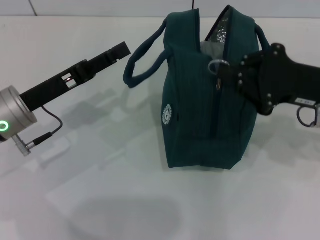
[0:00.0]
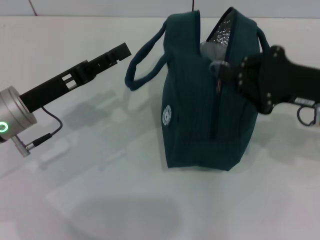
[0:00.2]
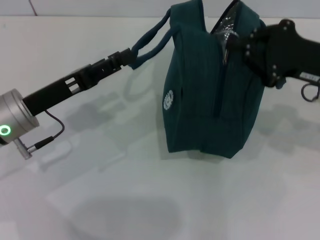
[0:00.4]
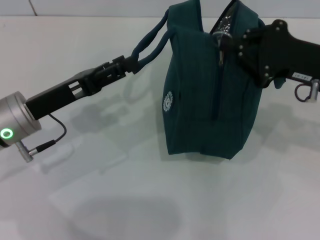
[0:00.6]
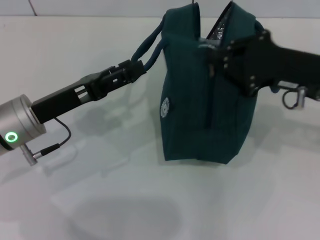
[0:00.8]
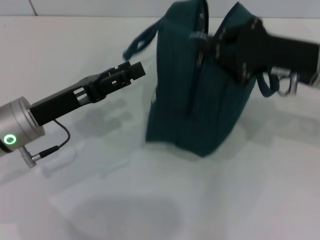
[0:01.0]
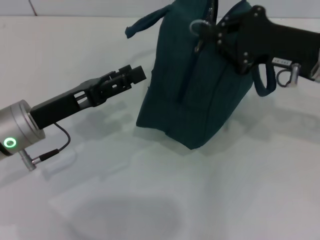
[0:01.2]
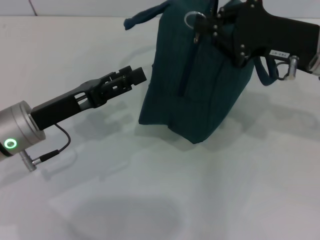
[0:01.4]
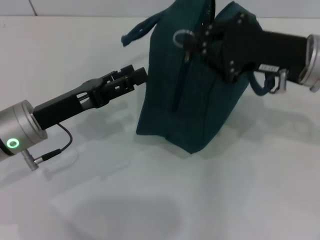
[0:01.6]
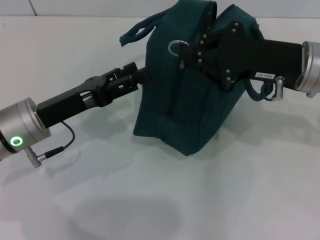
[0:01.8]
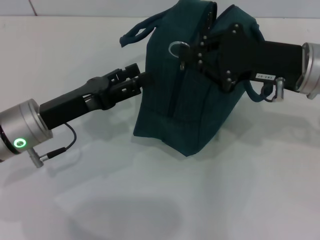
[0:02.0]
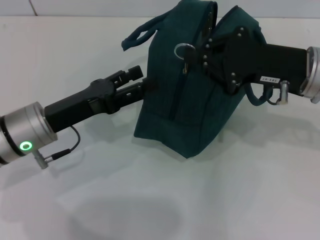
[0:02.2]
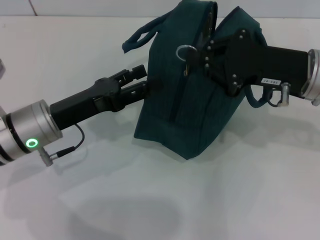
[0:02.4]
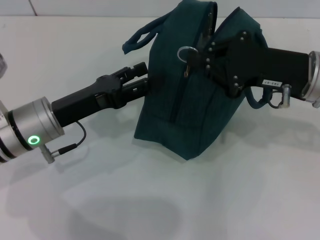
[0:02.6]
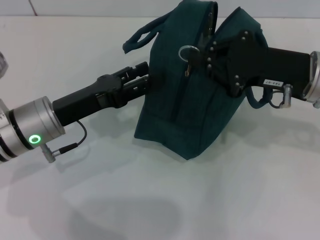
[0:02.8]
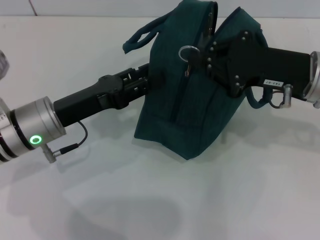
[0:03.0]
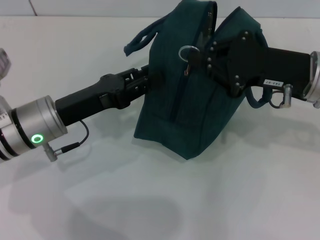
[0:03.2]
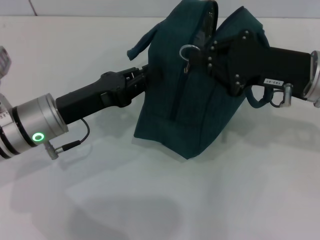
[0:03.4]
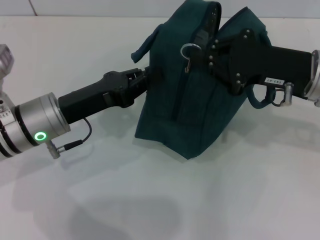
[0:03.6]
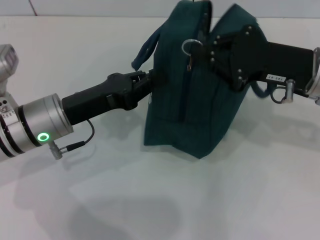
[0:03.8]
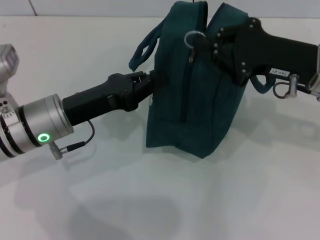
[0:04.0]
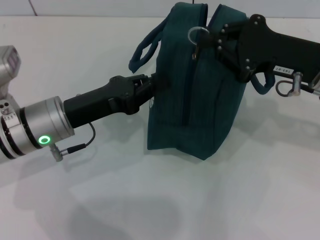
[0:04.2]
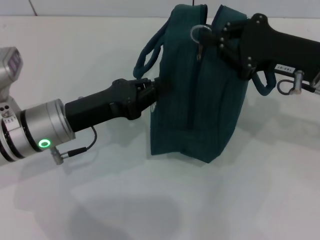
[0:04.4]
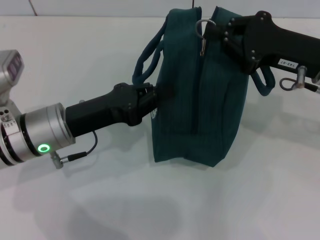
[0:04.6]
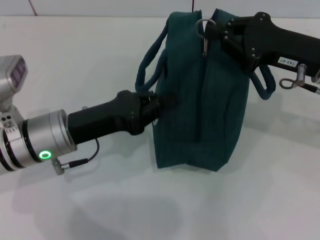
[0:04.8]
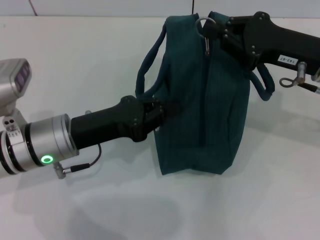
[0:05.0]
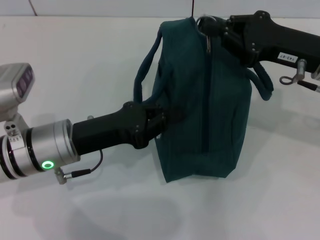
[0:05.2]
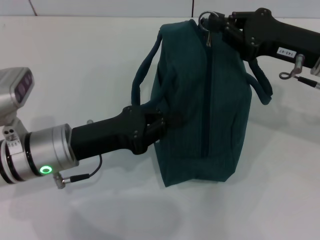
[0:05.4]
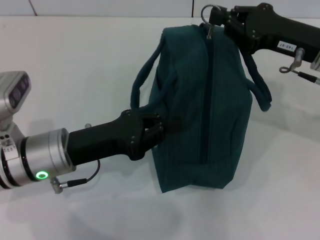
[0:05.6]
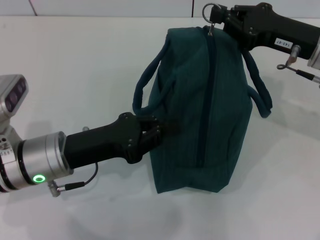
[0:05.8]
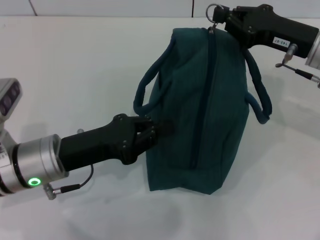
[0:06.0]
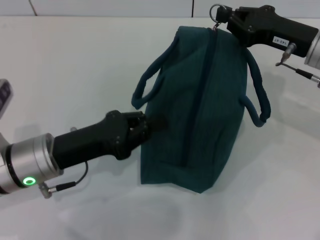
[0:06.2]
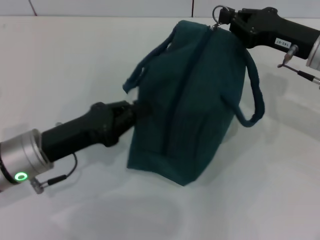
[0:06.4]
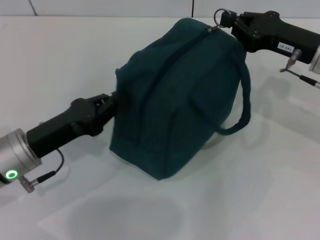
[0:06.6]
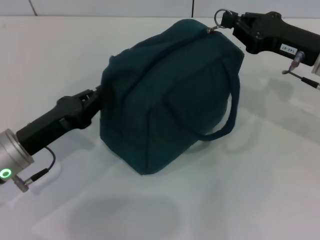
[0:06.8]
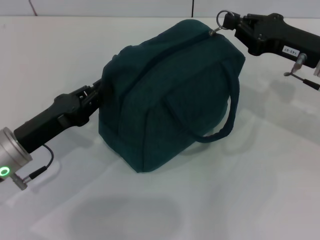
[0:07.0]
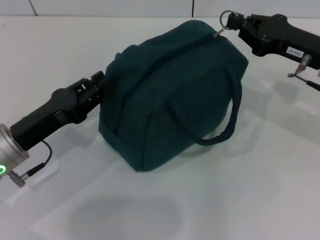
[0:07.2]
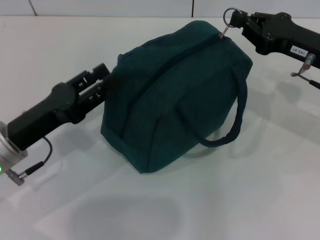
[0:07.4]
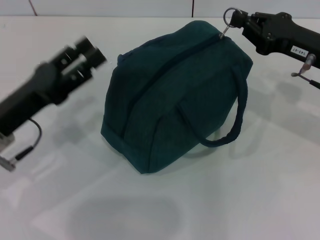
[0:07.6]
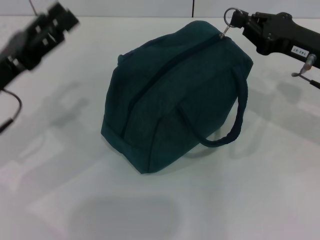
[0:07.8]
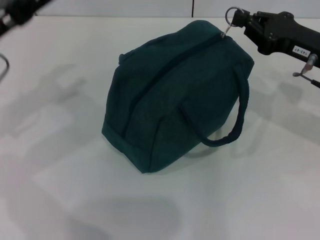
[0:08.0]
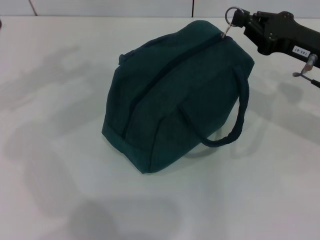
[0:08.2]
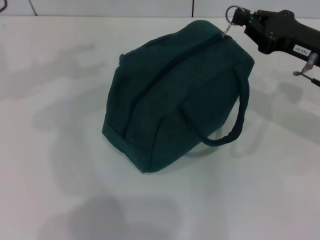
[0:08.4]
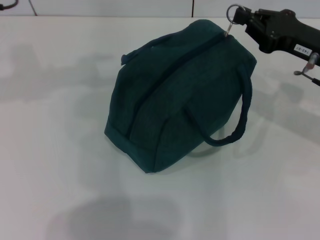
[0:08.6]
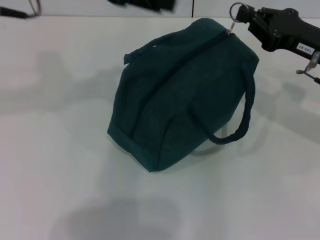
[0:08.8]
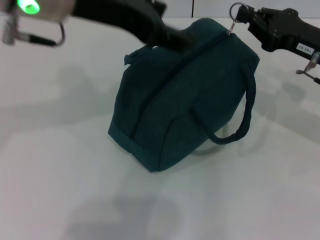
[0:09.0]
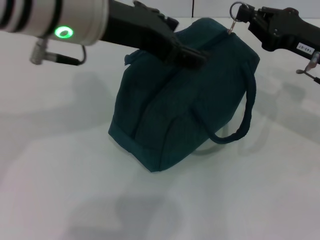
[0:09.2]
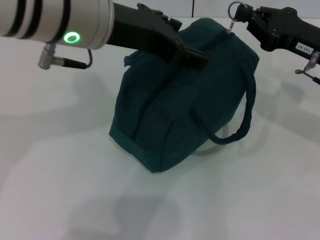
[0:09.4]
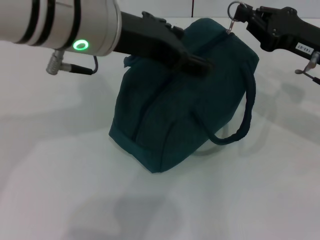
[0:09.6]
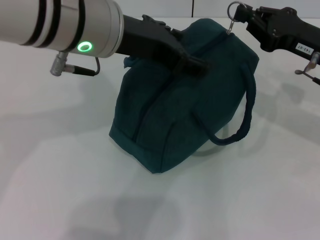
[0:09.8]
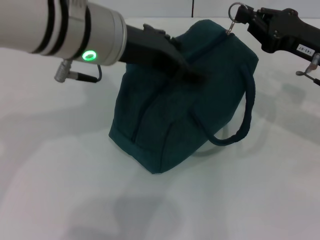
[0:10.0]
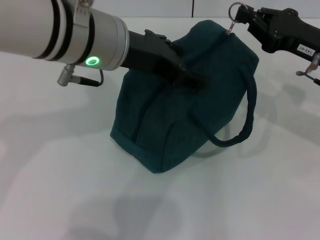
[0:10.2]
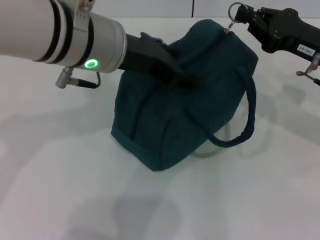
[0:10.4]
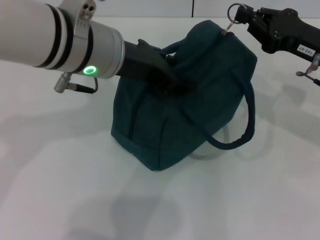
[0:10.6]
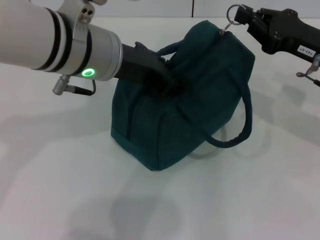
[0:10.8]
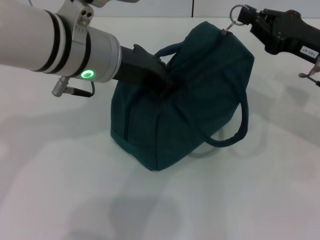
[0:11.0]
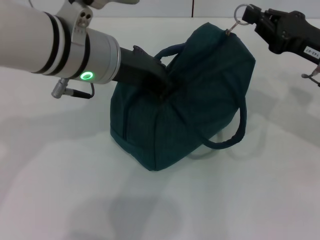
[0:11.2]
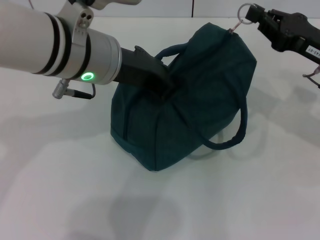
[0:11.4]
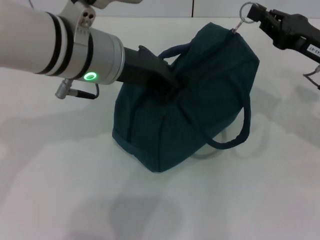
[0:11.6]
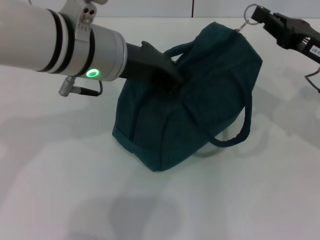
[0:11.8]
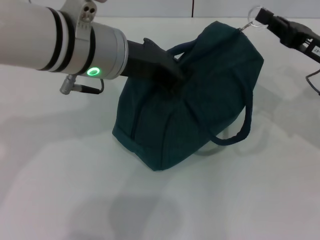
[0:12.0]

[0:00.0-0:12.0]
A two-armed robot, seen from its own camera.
0:00.0 to 0:01.6: The right gripper moves some 5 cm.
0:01.6 to 0:03.0: The grippers stay close to where they were, moving slightly.
0:03.0 to 0:04.4: The left gripper closes its fingers.
0:06.0 to 0:07.6: The left gripper moves to the left, about 5 cm, and opens up.
0:07.6 to 0:09.0: The left gripper heads upward and to the right, covering about 25 cm, and opens its fingers.
0:09.0 to 0:10.4: The left gripper goes about 5 cm downward.
0:10.4 to 0:12.0: The left gripper closes.

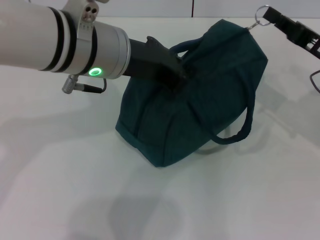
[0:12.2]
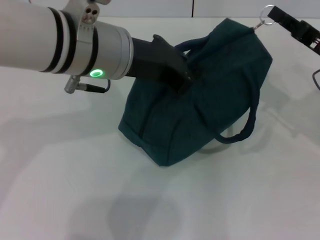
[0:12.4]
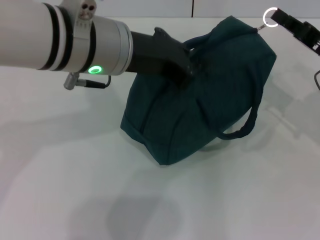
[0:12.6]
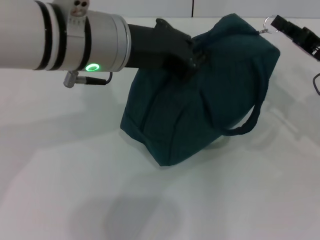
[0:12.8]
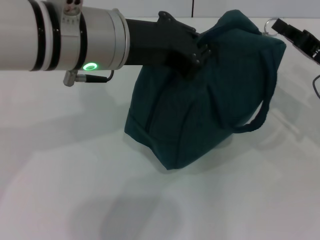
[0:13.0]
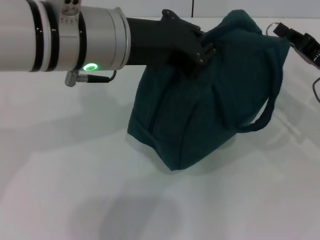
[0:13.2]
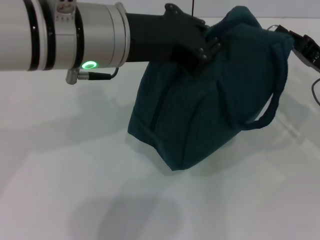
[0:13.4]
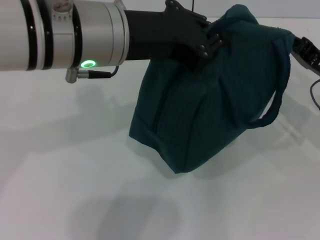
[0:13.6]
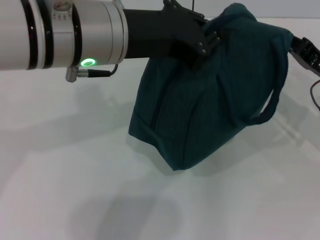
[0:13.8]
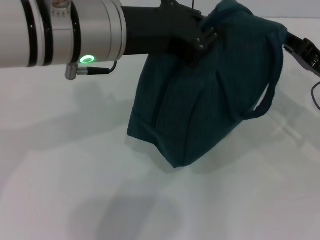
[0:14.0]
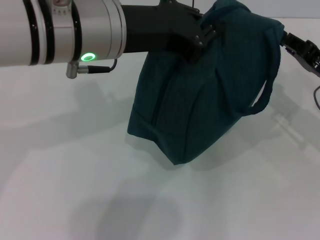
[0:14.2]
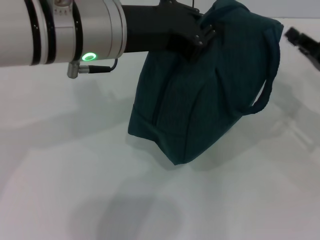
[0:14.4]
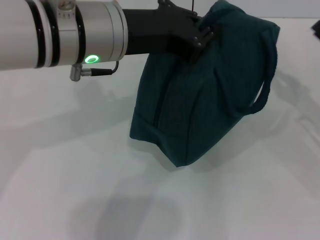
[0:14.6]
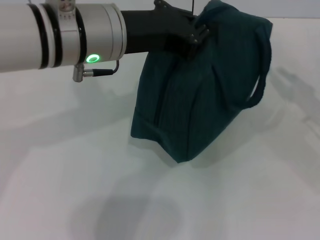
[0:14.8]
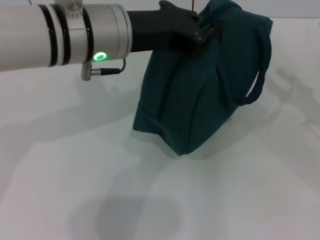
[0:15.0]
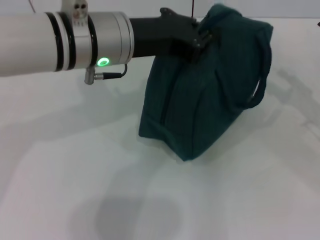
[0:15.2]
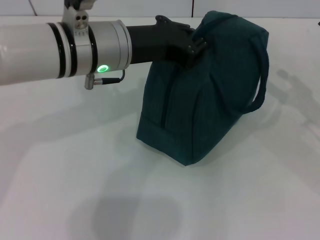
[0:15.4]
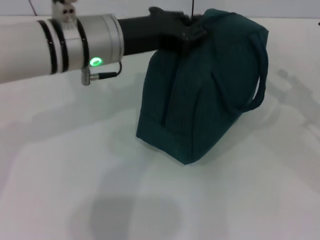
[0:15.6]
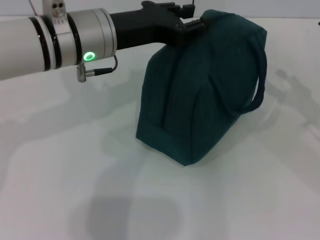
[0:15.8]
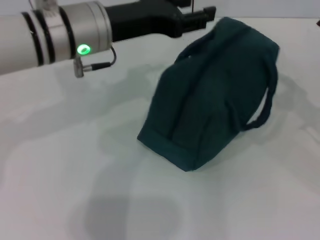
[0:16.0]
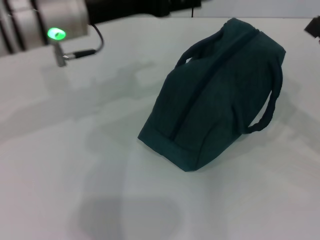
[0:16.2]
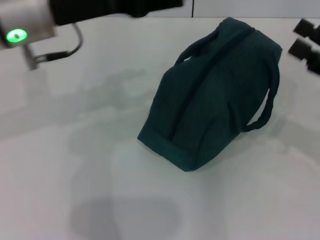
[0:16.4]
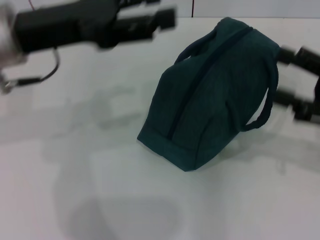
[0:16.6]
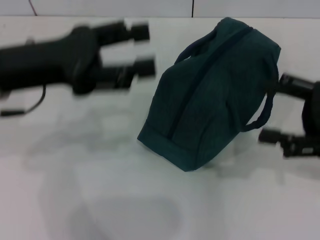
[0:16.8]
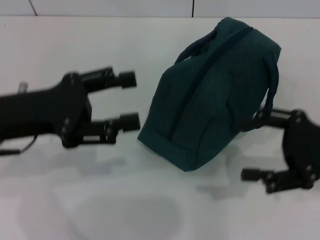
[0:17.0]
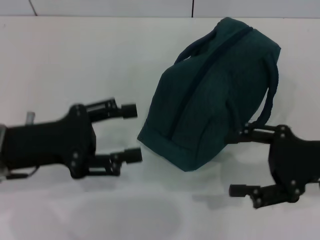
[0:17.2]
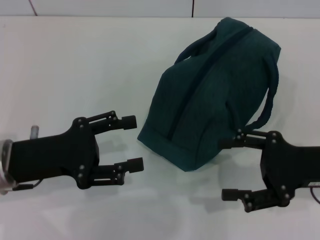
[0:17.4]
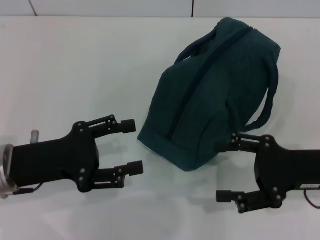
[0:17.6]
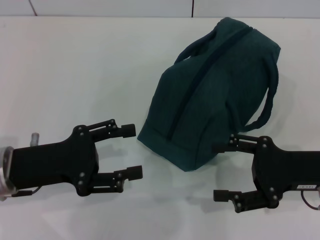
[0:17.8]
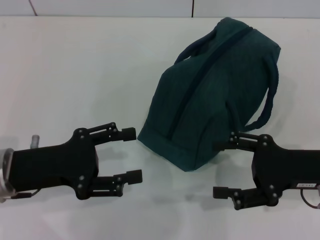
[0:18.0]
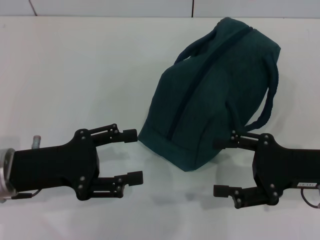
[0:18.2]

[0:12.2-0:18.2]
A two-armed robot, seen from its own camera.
Step, 0:12.2 to 0:14.4: Zip up the lunch bag with your right hand.
Step, 0:14.6 to 0:16.0: Hold the lunch bag with your left hand.
0:13.8 to 0:15.2: The right gripper shifts some 5 cm to the right, and opens up, while the left gripper moves about 5 cm.
0:15.2 to 0:16.6: The right gripper shifts by roughly 5 cm. The left gripper goes roughly 10 cm to the left, and opens up.
0:16.6 to 0:18.2: The right gripper is displaced downward and to the left by some 10 cm, while the left gripper shifts about 15 cm downward and backward.
